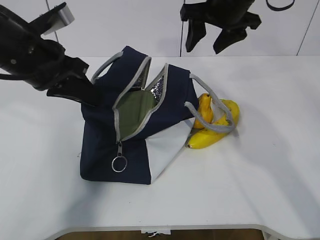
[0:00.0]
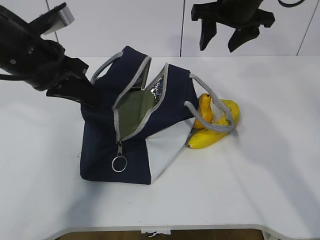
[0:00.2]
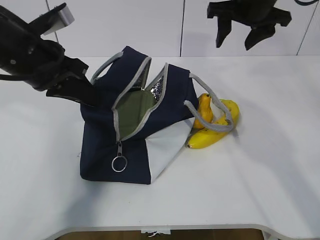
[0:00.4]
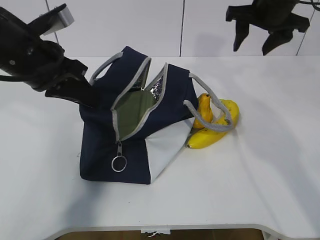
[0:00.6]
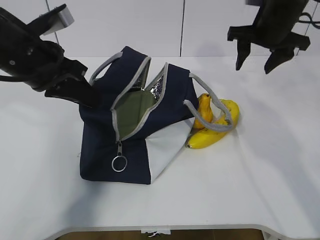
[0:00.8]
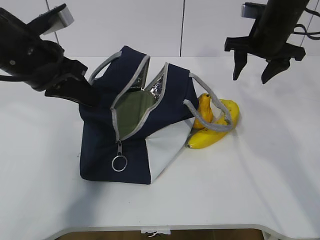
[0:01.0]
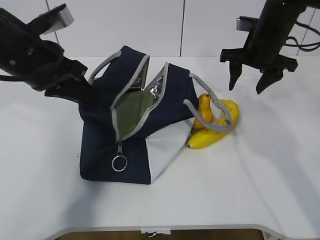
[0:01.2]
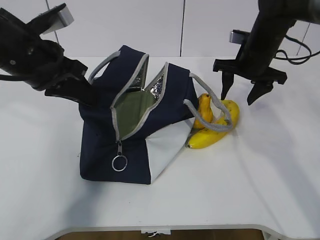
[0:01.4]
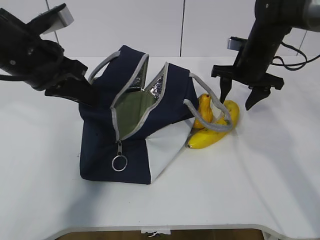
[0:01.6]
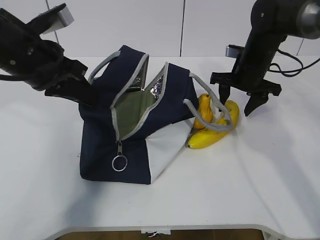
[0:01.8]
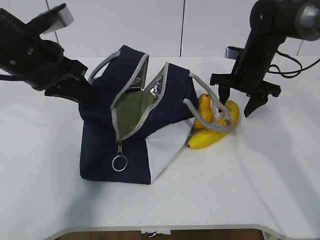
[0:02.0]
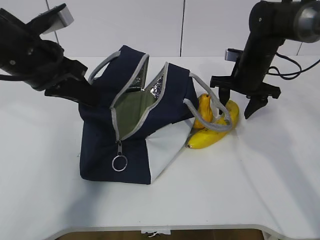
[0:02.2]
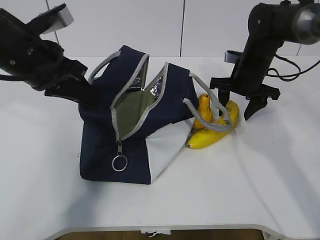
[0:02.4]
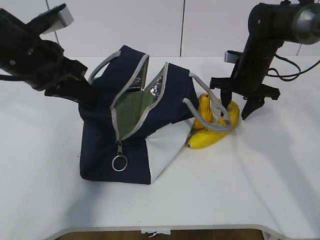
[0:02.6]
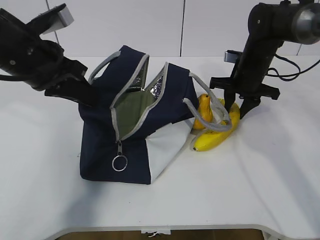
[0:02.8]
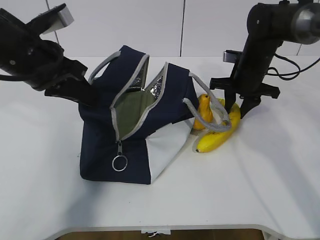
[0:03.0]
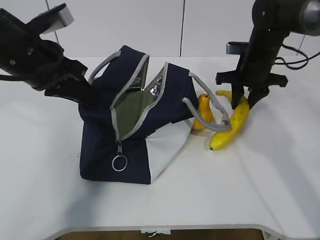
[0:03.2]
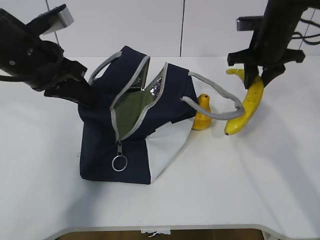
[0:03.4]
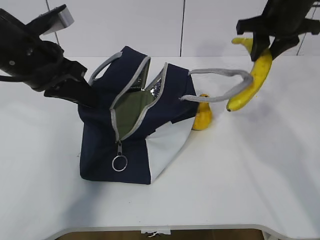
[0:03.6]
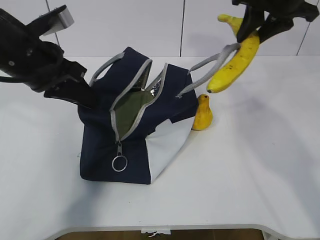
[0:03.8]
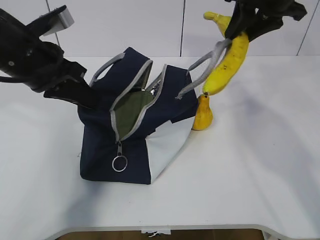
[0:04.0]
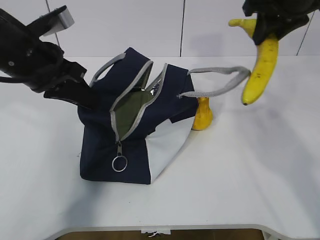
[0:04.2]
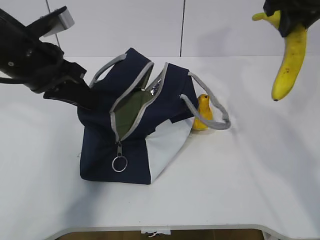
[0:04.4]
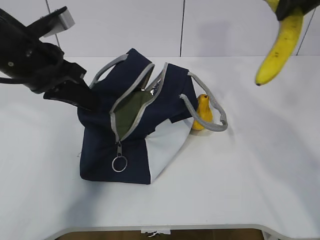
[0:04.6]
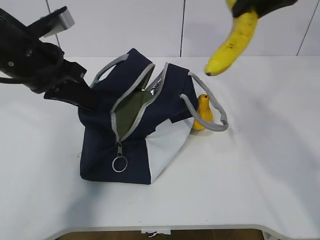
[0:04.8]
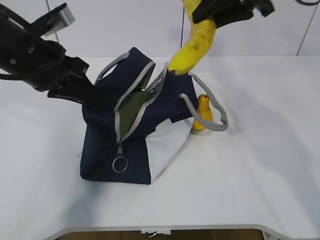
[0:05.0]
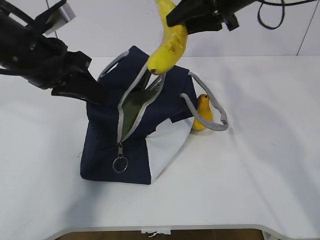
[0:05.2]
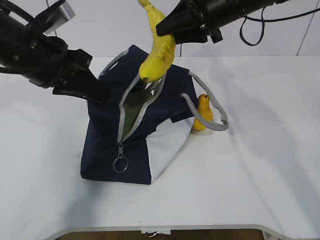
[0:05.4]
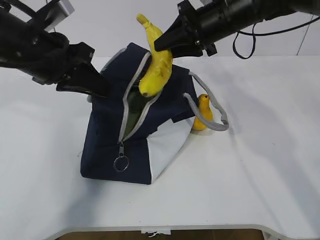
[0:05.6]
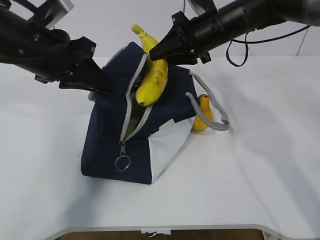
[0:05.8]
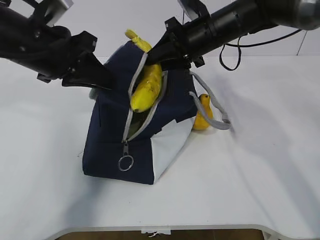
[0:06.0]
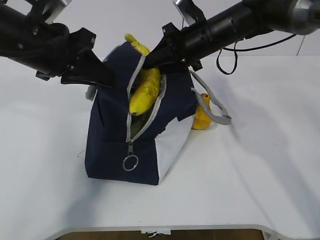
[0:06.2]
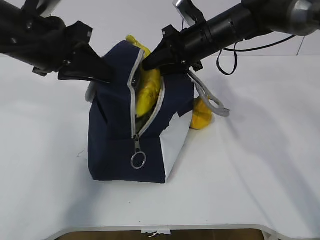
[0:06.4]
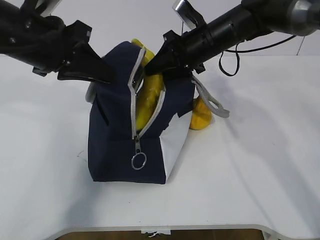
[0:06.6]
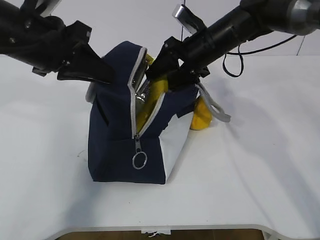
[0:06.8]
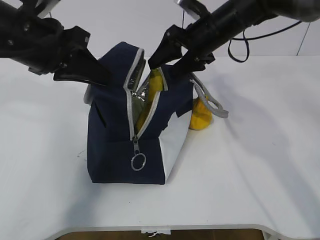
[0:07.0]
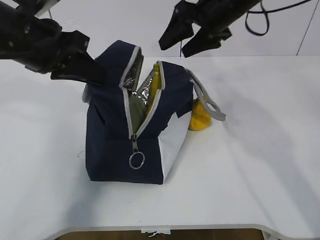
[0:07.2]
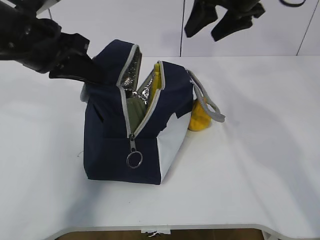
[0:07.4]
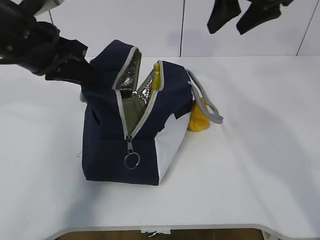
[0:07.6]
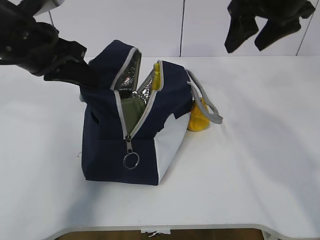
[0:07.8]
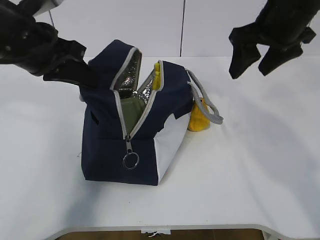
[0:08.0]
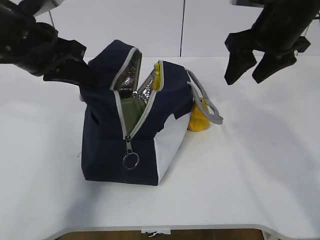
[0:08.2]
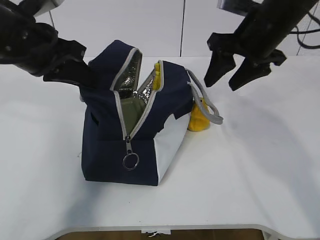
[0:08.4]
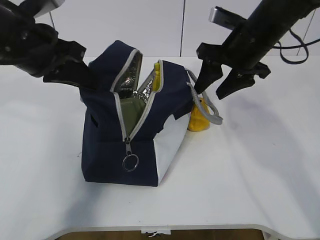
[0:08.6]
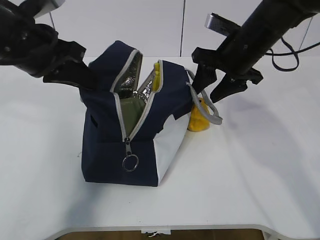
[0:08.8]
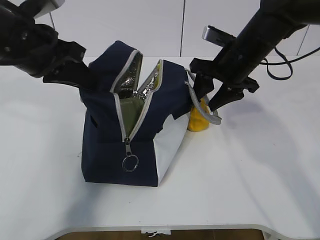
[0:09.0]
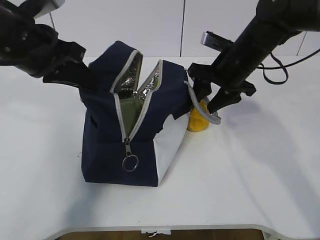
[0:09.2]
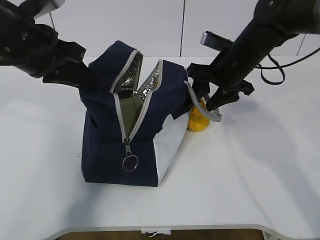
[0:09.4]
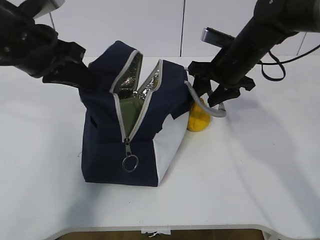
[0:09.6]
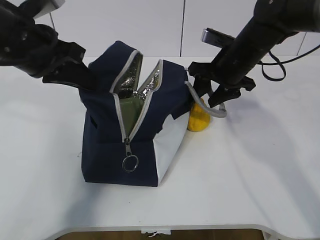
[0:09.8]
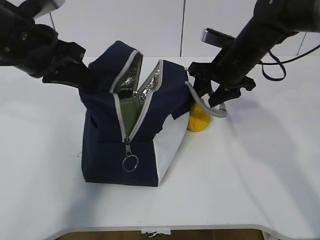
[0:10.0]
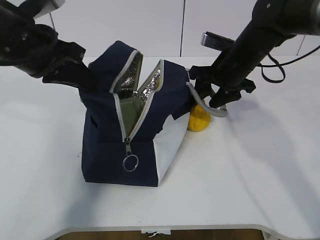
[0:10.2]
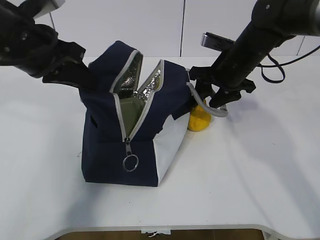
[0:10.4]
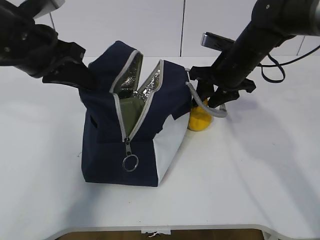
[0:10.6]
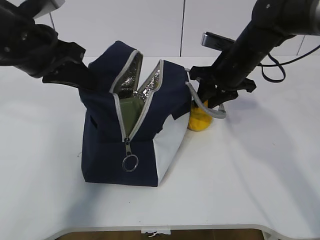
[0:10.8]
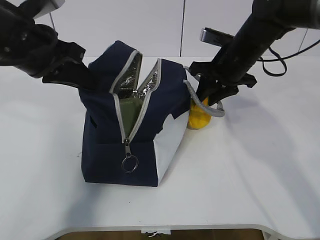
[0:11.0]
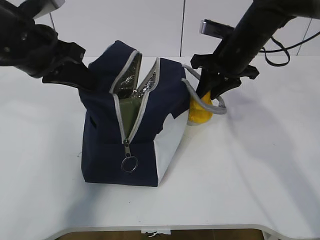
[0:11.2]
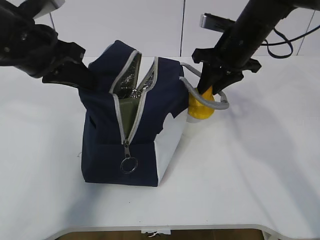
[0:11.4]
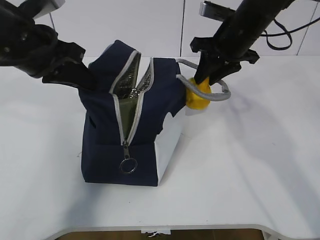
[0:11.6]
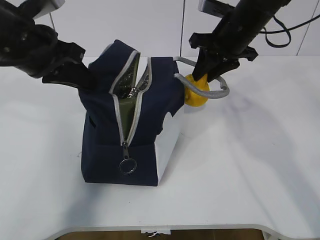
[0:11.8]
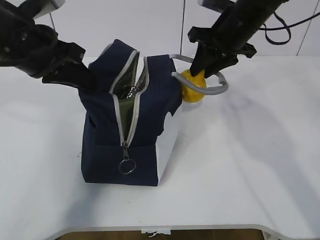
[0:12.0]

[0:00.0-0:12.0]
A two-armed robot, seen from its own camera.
Step, 0:00.0 to 0:03.0: Grasp the banana with the right gripper.
Step, 0:03.2 to 0:07.0: Place the banana into the package with the right gripper.
Step, 0:07.2 to 0:10.8: Grasp the pear with the right gripper.
0:00.0 to 0:01.6: The right gripper travels downward and to the right by roughly 15 cm.
0:01.6 to 0:03.0: The right gripper closes up.
0:03.0 to 0:04.4: The right gripper travels upward by about 20 cm.
0:04.4 to 0:06.0: The right gripper shifts about 15 cm to the left, downward and forward.
0:06.0 to 0:07.6: The right gripper goes approximately 15 cm upward, backward and to the right, and opens up.
0:07.6 to 0:09.0: The right gripper is displaced downward by roughly 15 cm.
0:09.0 to 0:10.4: There are only small adjustments of the grippers.
0:10.4 to 0:12.0: The right gripper travels upward by about 5 cm.

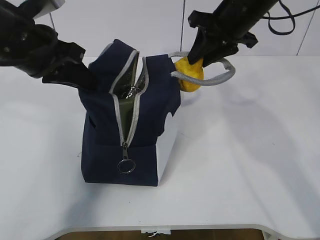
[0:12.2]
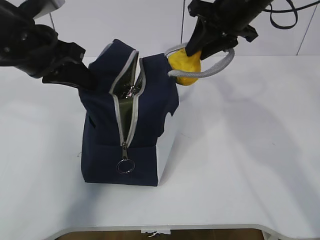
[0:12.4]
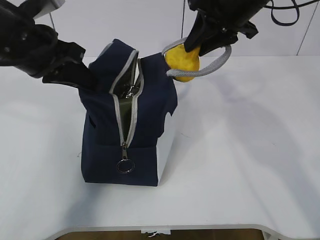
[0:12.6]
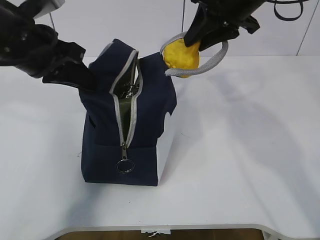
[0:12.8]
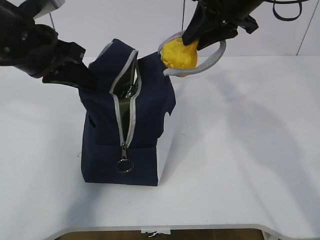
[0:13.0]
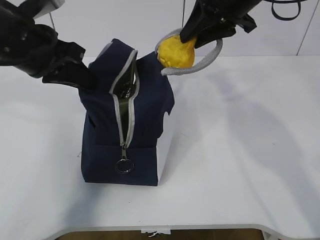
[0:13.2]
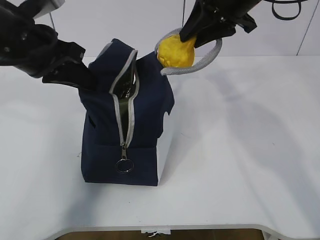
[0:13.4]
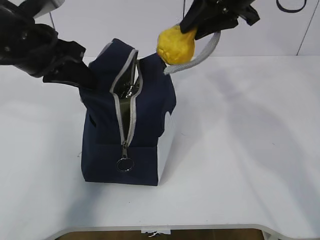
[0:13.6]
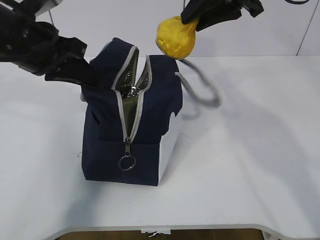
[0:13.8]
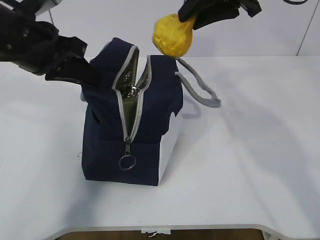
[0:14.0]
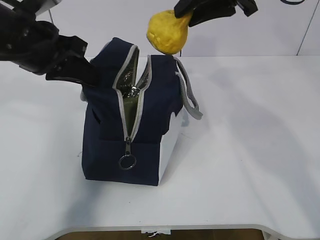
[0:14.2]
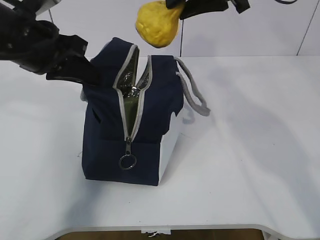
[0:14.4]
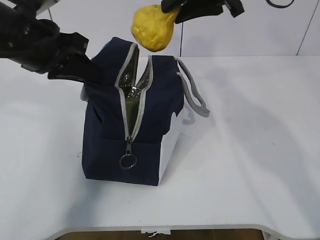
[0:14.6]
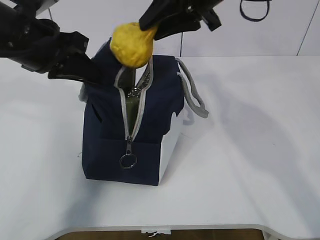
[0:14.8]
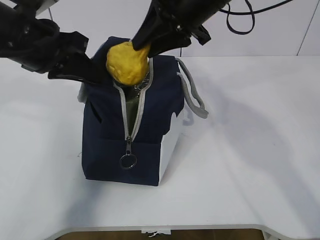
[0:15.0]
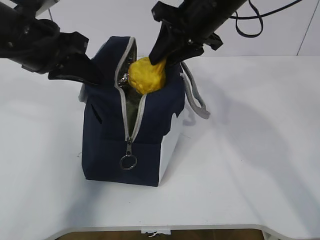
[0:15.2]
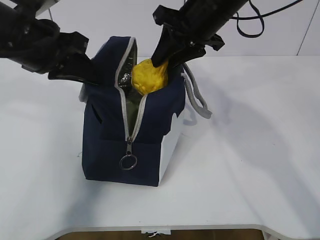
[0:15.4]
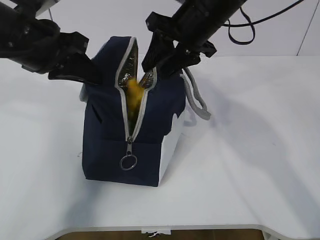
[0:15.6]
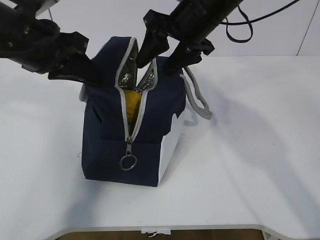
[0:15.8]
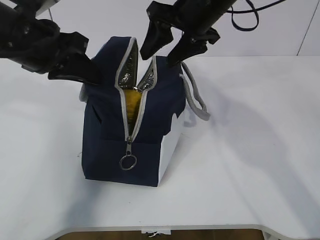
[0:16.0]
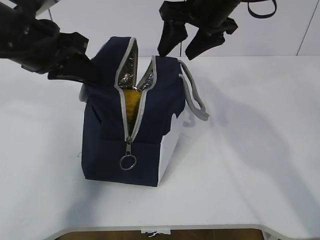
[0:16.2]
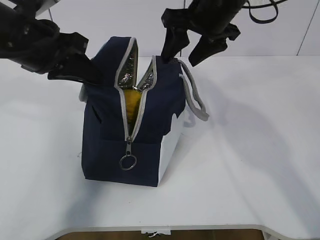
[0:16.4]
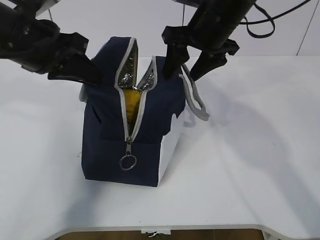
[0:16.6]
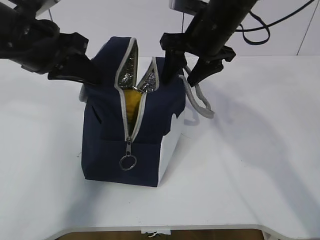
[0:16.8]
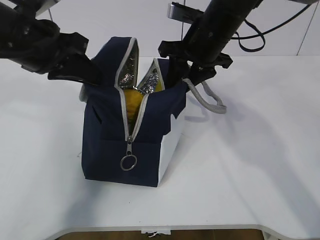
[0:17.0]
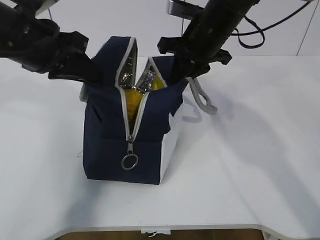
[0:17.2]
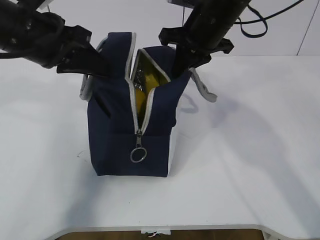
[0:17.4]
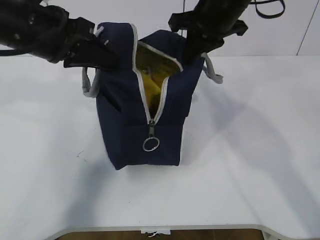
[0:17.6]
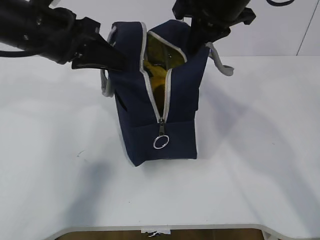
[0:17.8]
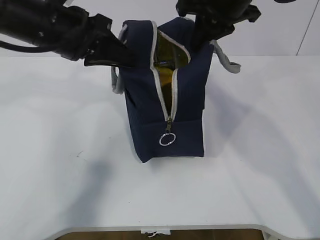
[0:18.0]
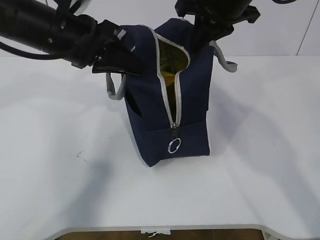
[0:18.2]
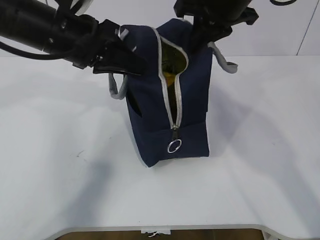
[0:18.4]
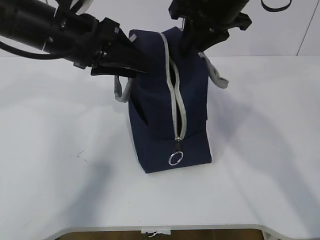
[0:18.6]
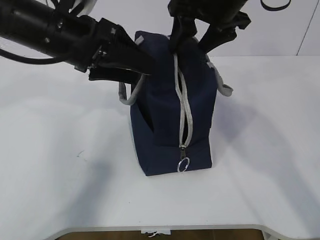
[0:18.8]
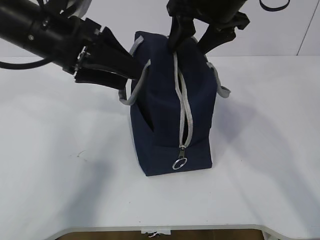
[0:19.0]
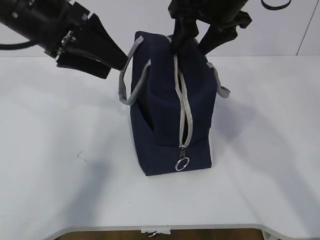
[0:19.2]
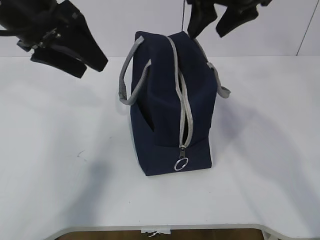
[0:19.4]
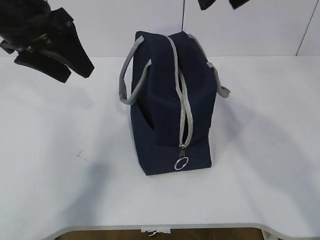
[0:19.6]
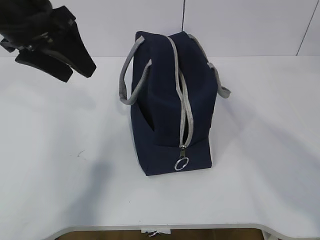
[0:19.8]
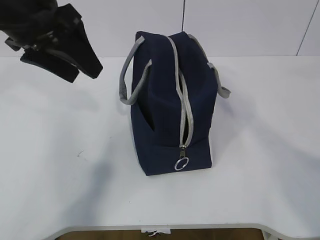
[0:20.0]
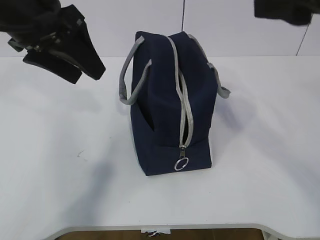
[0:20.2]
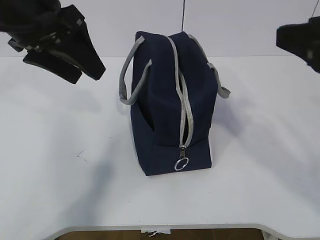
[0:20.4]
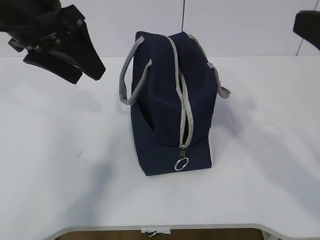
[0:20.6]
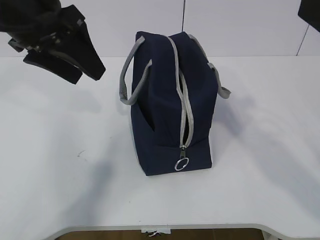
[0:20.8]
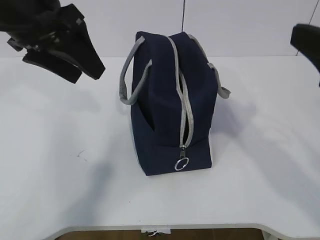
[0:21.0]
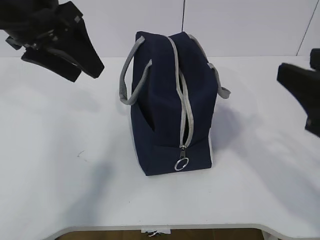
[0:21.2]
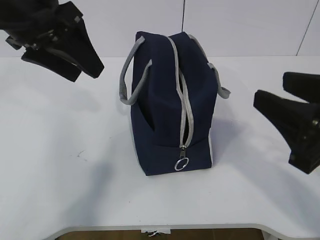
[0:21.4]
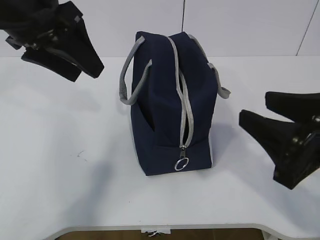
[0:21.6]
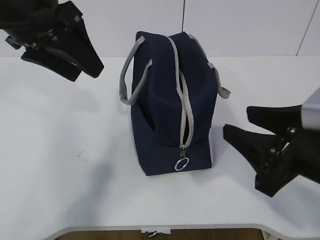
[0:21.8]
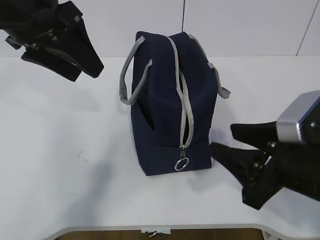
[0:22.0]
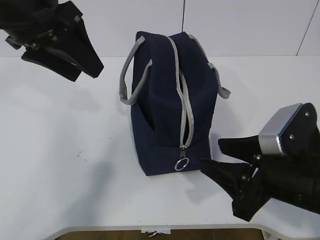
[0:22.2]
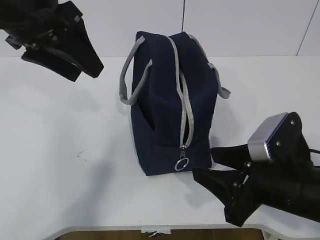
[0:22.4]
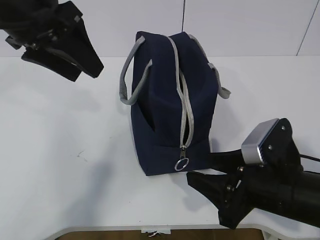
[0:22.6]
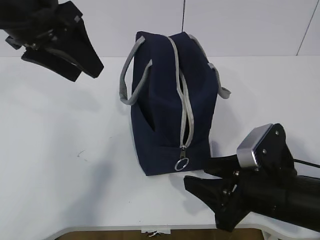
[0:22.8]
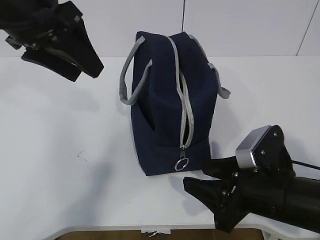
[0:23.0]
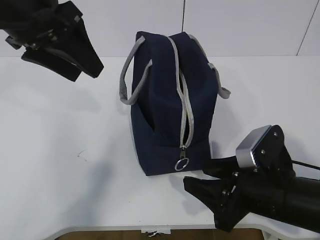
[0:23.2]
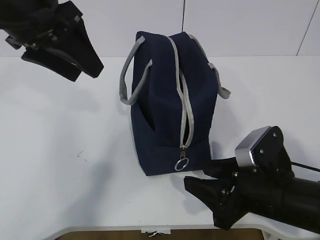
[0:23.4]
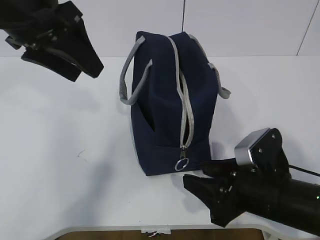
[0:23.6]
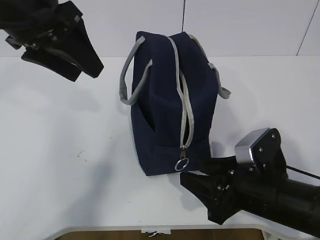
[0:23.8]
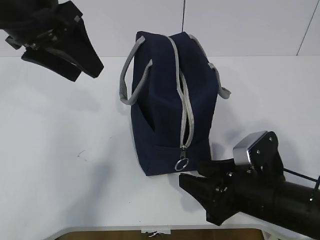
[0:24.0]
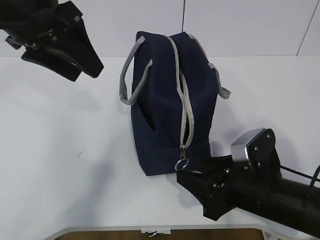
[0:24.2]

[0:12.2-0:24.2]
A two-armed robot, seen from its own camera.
Step, 0:12.2 to 0:16.0: Place the pear into the package with the right gripper.
0:12.2 to 0:13.8: The right gripper goes roughly 5 cm upward.
0:13.8 to 0:15.2: The right gripper shifts some 10 cm to the left and downward.
0:15.2 to 0:16.6: The right gripper opens.
0:16.6 to 0:18.2: The right gripper ends up roughly 5 cm from where it was, and closes up.
0:18.2 to 0:19.8: The right gripper moves upward and backward, approximately 10 cm, and opens up, while the left gripper moves about 5 cm, and opens up.
0:19.8 to 0:21.2: The right gripper goes roughly 20 cm backward and downward.
0:21.2 to 0:22.6: The right gripper heads downward and to the left, covering some 15 cm.
0:22.6 to 0:24.2: The grippers move only a little.
